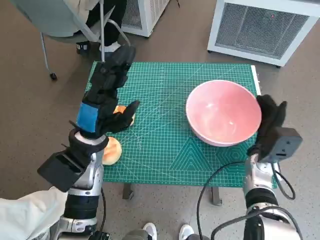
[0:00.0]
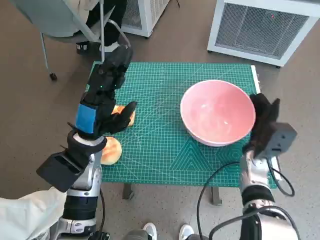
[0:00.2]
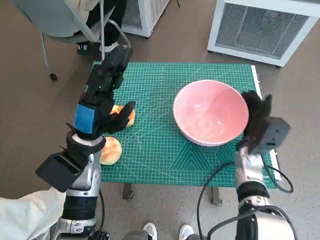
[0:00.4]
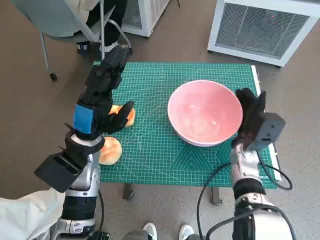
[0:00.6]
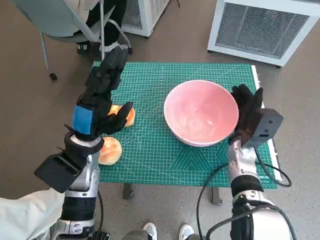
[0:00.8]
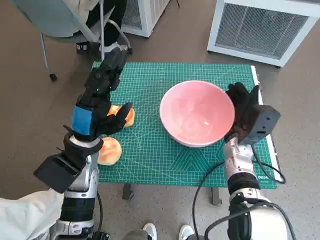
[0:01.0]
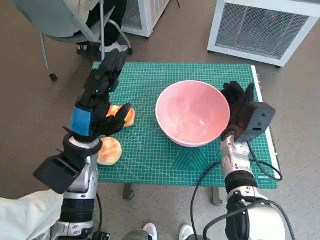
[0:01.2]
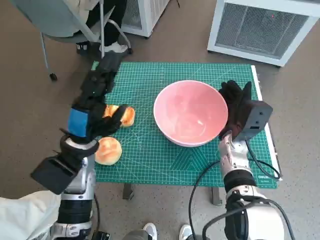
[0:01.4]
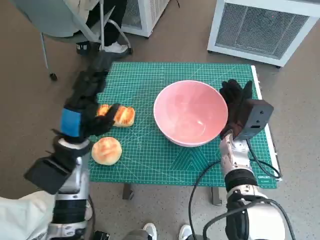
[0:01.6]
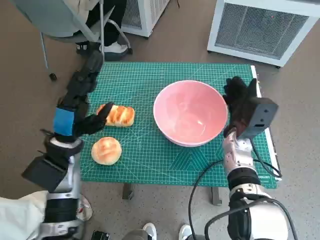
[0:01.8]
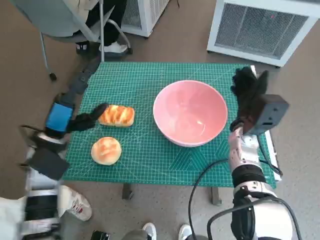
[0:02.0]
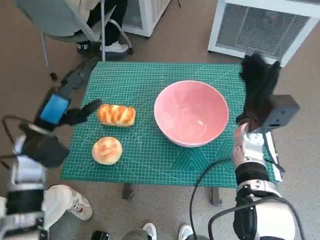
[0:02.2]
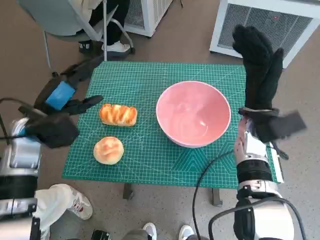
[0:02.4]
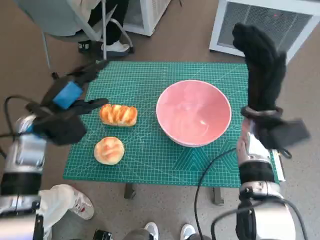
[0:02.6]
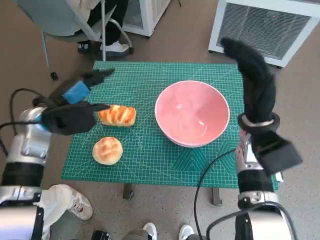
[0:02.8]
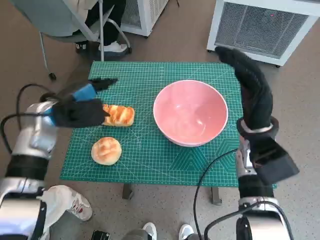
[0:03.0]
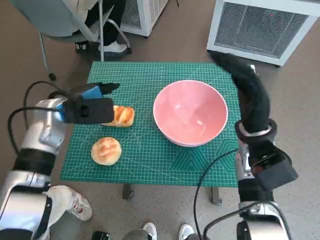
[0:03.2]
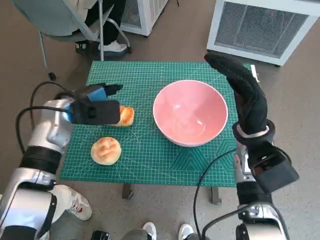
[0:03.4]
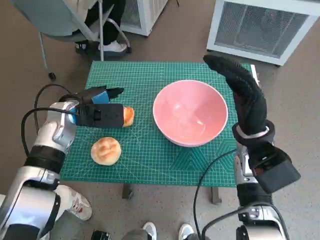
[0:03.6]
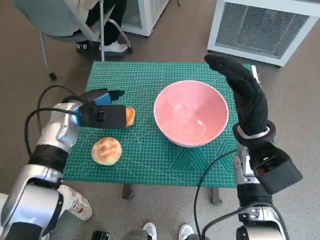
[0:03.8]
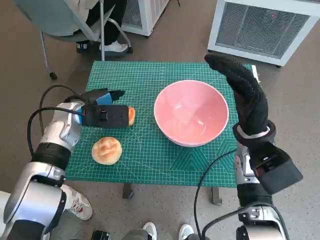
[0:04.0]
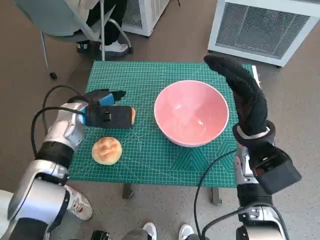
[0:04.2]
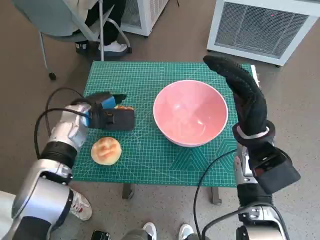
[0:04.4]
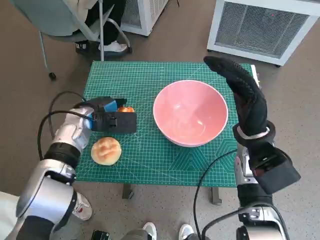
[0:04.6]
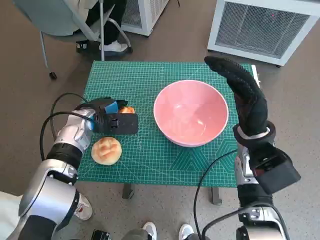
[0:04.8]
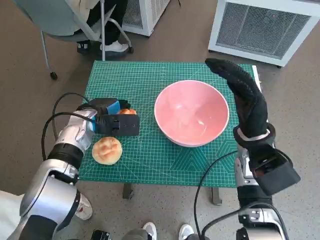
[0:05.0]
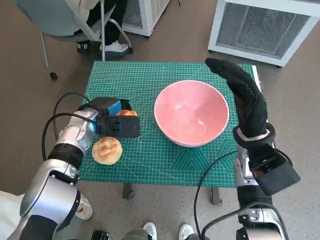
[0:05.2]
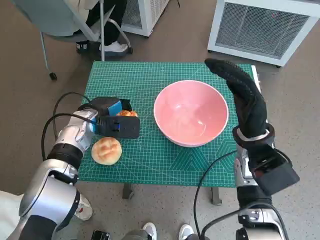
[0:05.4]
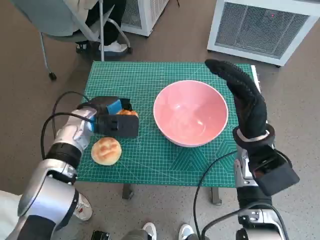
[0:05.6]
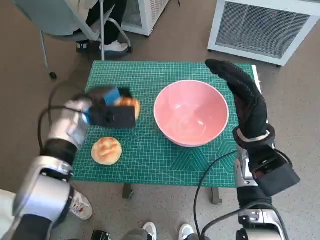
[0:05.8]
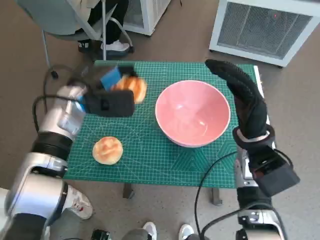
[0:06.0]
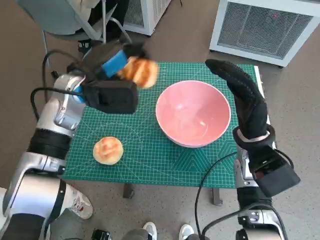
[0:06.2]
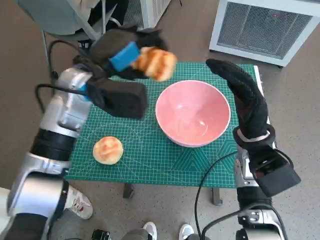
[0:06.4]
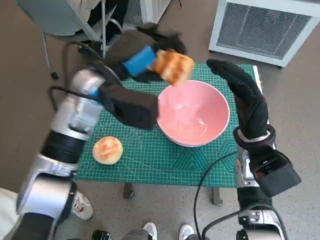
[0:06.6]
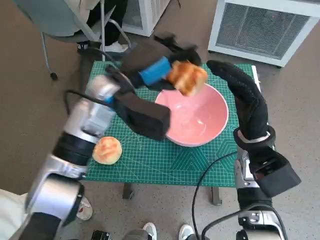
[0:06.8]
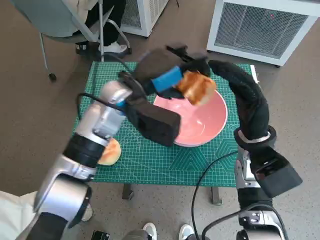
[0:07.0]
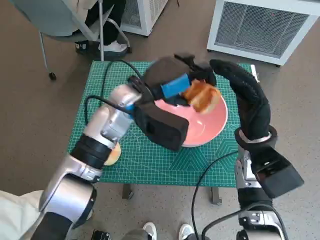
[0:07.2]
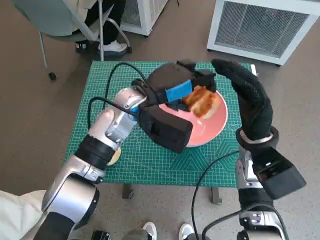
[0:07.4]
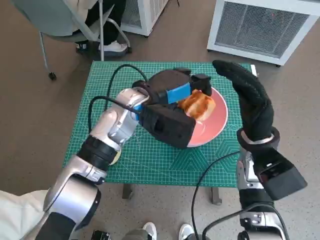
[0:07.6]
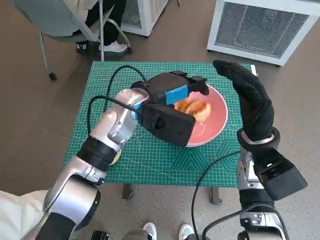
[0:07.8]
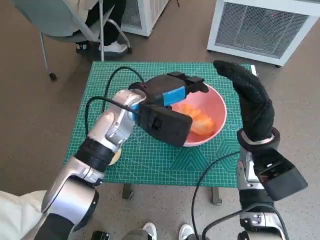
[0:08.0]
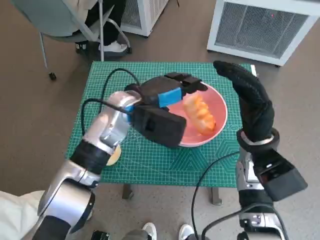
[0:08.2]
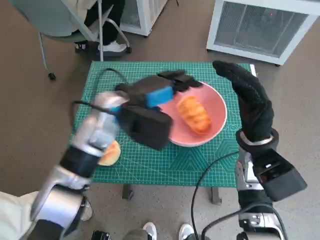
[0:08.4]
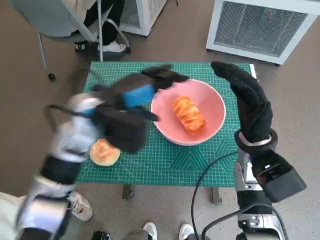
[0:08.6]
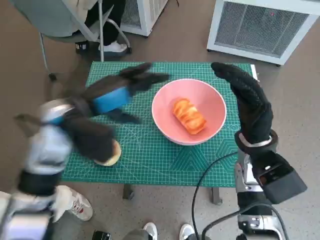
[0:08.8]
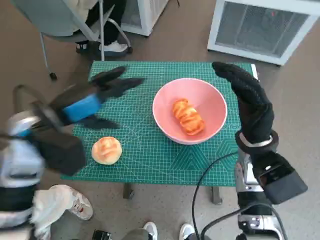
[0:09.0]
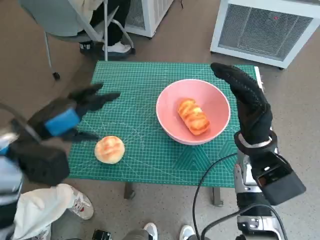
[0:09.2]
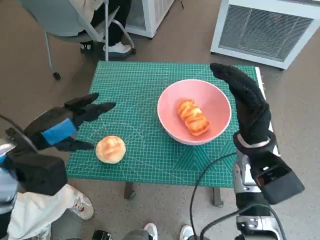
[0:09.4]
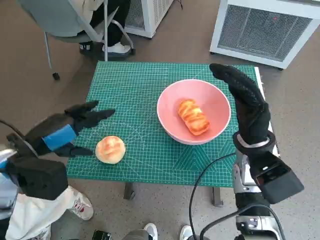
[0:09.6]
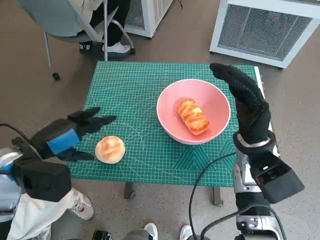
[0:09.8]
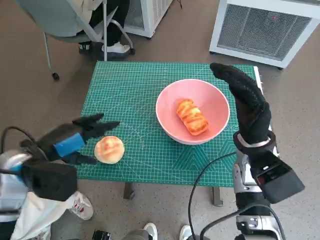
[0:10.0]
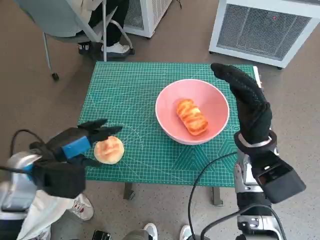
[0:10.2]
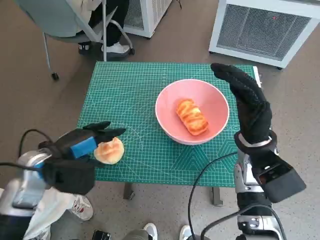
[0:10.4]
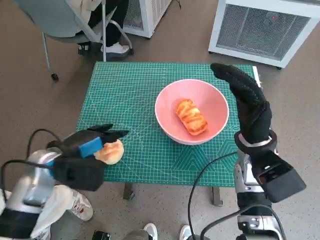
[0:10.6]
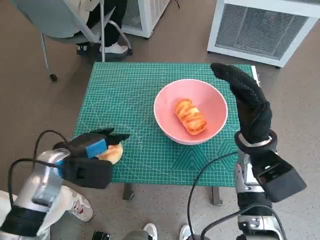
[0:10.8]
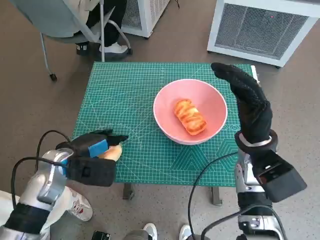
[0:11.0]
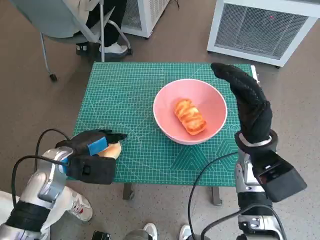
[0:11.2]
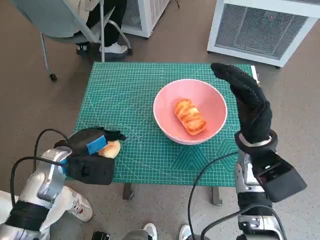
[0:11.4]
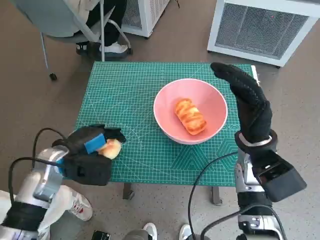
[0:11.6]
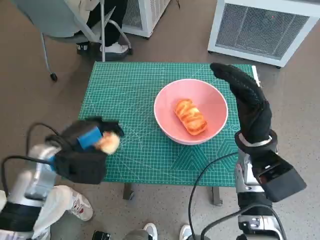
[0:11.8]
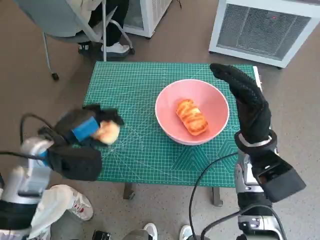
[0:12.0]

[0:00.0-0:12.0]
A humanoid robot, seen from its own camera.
Task of the whole recording: Push the bowl to the center of the table and put the bread into the bowl.
Step, 0.0 to 2.0 s: Move the pink bowl to the center of table with right hand.
Step, 2.2 to 5.0 s: Grasp the long bread with left hand.
Step, 5.2 to 8.4 s: Place the long bread in pink bowl with left hand.
Step, 8.6 to 11.4 s: Grasp the round bread with left hand.
0.0 to 1.6 s: The right hand travels to the left by some 5 cm.
1.6 to 3.0 s: The left hand travels forward and to the left by some 10 cm; the right hand heads upward, covering roughly 10 cm.
3.0 to 4.4 s: The left hand moves some 5 cm.
6.0 to 7.6 s: The left hand goes approximately 10 cm to the right.
7.6 to 9.0 s: The left hand heads to the left and backward, covering about 15 cm.
9.0 to 10.4 s: The left hand shifts roughly 10 cm downward.
10.4 to 12.0 s: The hands make only small movements.

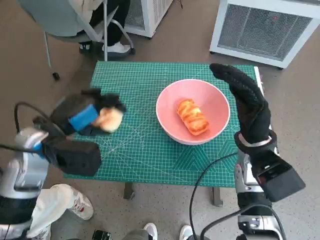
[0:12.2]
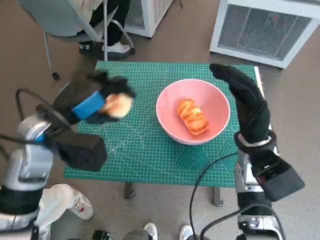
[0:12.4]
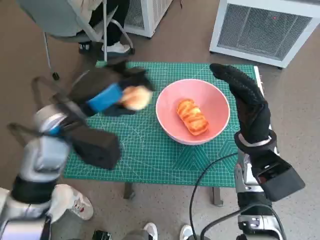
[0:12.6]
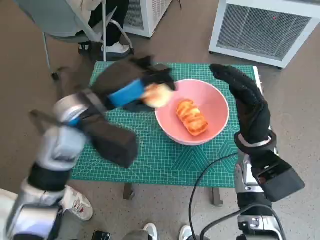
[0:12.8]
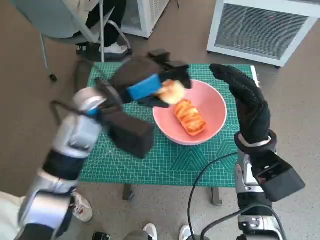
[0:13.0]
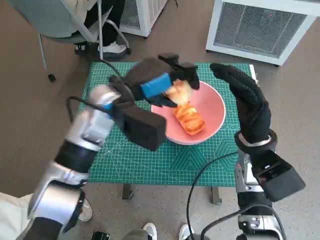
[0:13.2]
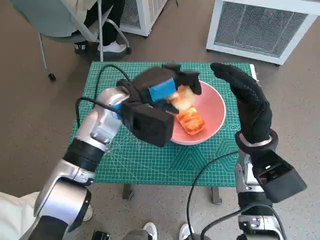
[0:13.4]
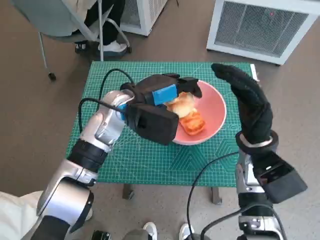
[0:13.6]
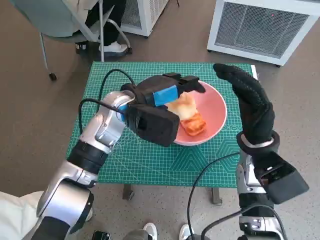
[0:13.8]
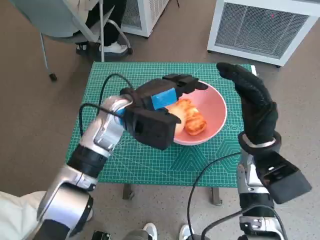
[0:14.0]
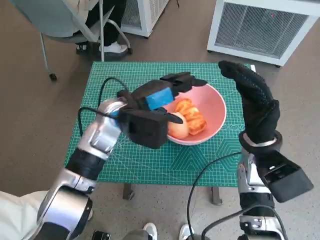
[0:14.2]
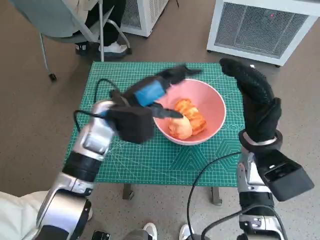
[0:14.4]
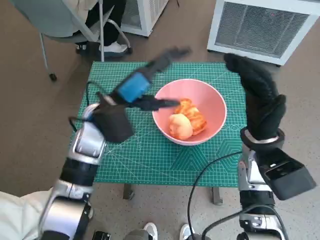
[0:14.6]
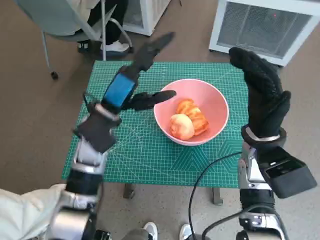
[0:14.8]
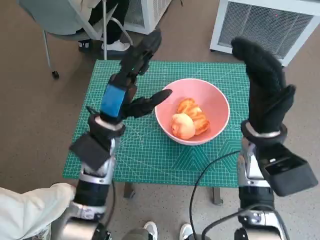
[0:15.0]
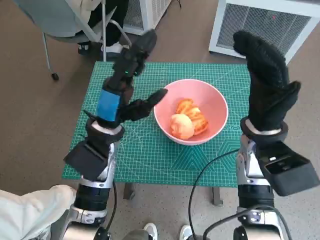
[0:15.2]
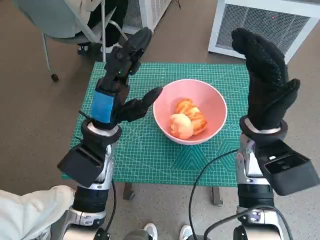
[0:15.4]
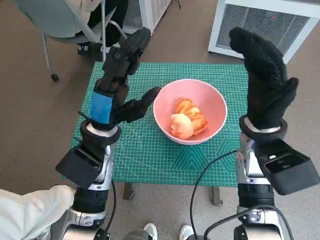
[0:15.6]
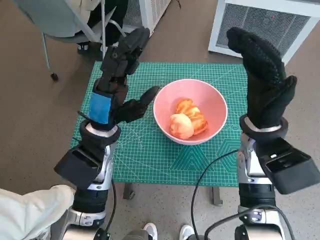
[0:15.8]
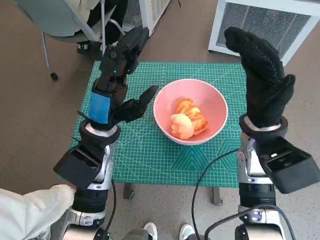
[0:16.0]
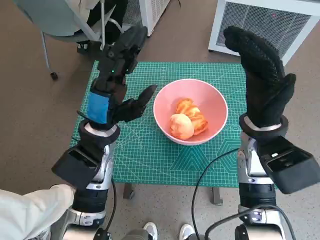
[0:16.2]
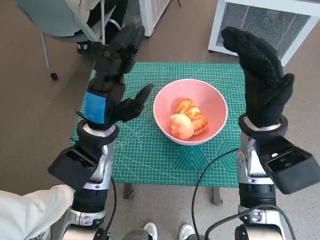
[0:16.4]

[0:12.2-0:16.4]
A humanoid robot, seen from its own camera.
Task of the whole recording: Push the bowl to the center of the table and put the bread into the bowl.
Step, 12.2 to 14.2 s: Place the round bread in pink bowl with left hand.
12.2 to 13.6 s: The left hand moves to the right and forward, some 15 cm.
13.6 to 15.0 s: The left hand changes place by about 5 cm.

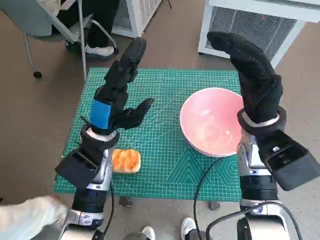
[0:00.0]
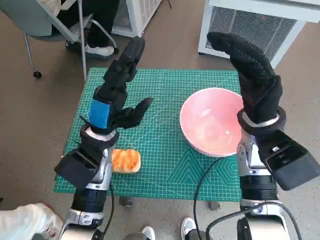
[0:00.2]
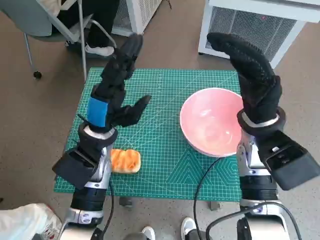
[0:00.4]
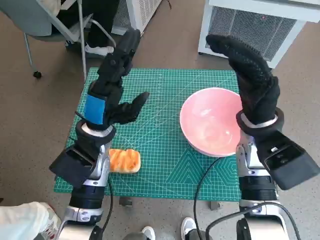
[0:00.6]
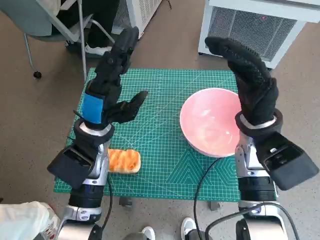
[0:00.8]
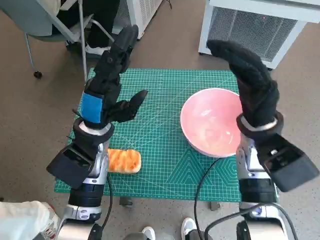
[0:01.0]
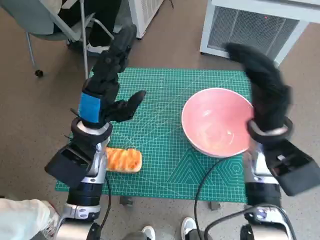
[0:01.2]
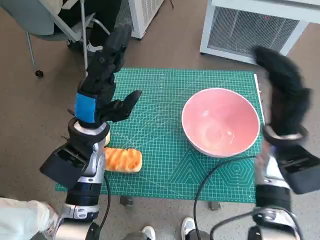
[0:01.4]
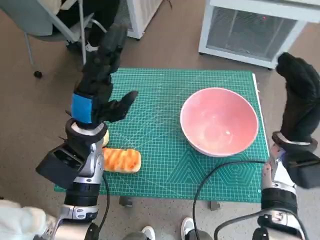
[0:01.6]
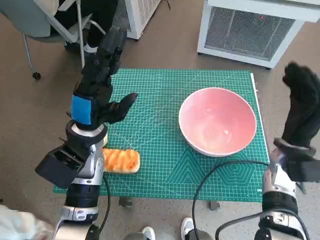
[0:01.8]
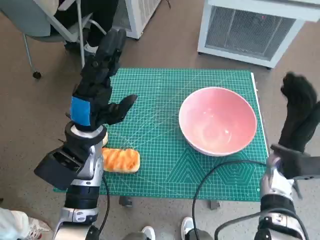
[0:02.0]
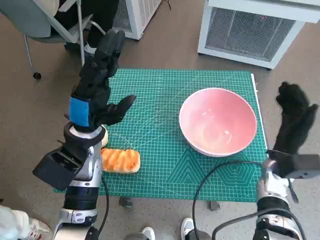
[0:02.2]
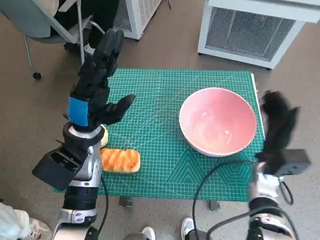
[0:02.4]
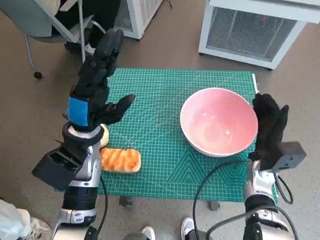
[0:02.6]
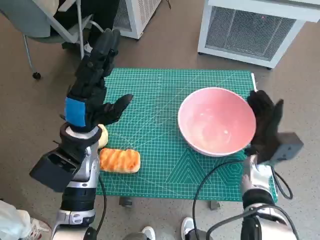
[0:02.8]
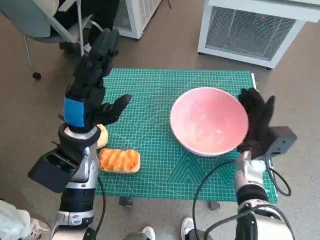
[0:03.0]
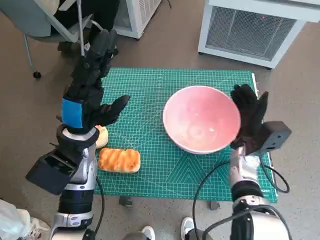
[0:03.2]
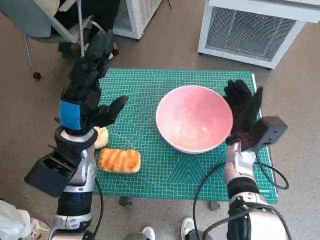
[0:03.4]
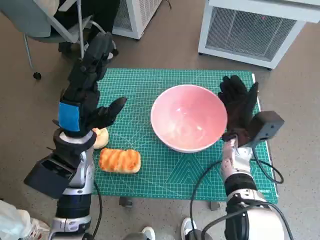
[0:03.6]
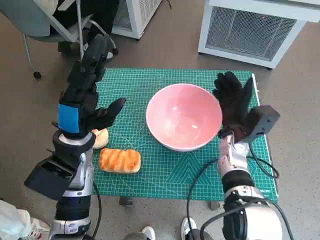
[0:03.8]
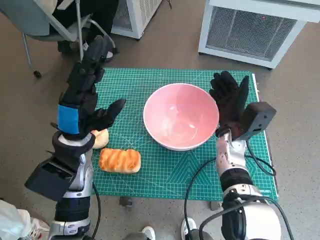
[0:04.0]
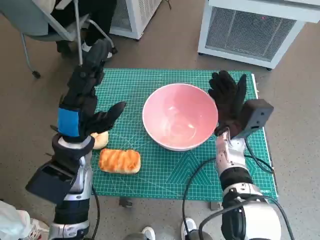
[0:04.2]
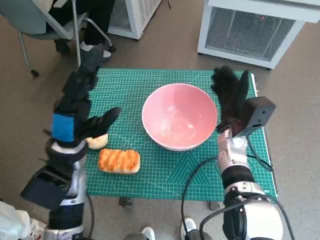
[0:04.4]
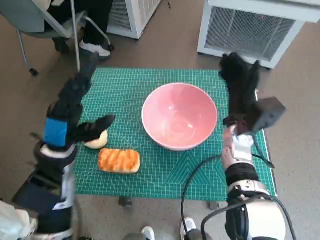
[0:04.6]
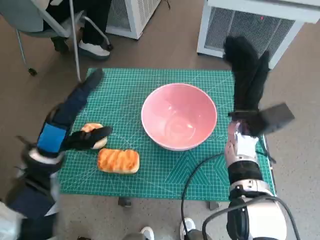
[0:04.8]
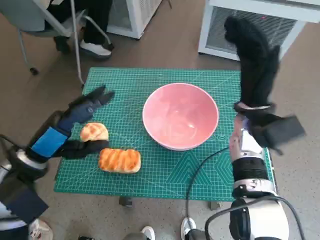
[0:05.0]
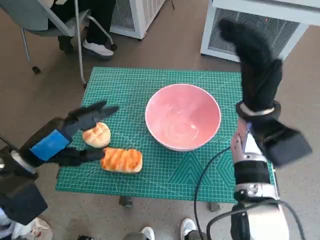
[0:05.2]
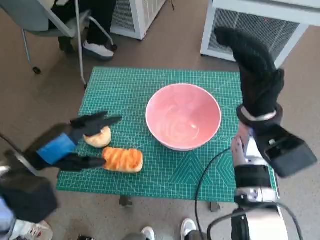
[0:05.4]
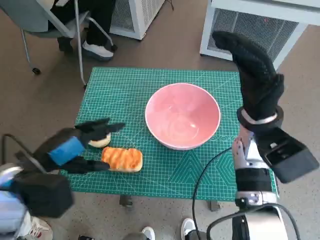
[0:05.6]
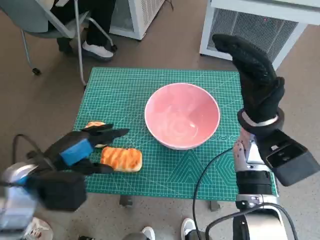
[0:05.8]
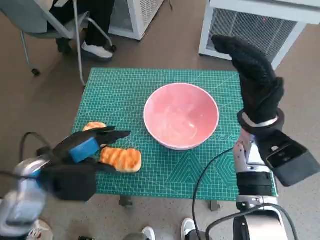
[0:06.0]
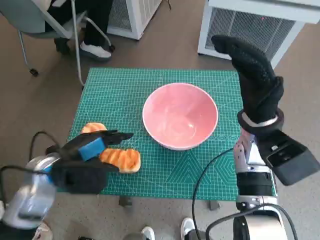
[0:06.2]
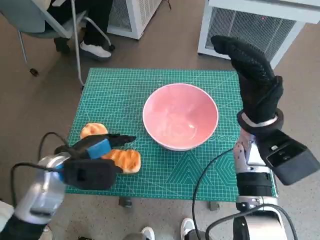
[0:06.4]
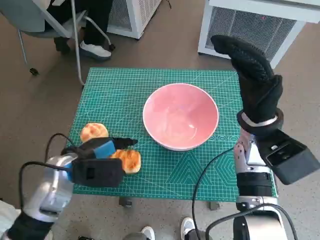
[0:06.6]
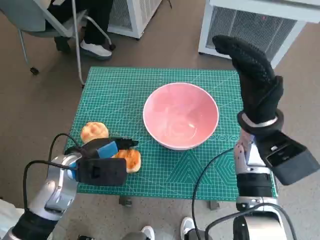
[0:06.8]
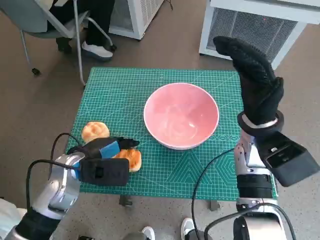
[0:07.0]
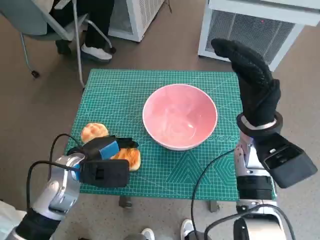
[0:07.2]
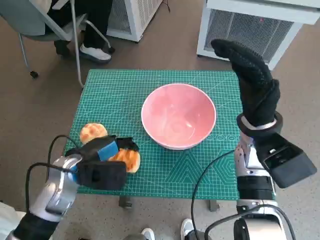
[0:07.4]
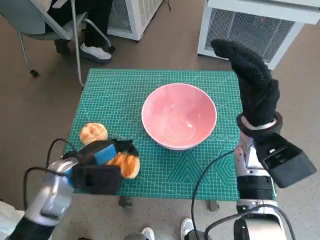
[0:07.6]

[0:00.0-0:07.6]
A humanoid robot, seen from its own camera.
Task of the whole recording: Push the bowl to the center of the table and put the bread into the bowl.
Step, 0.0 to 4.4 s: Move the pink bowl to the center of table with right hand.
Step, 4.6 to 7.2 s: Grasp the long bread with left hand.
1.6 to 3.0 s: The right hand is displaced downward by about 10 cm.
3.0 to 4.6 s: The right hand shifts about 5 cm upward.
4.6 to 6.0 s: The right hand travels upward by some 10 cm.
6.0 to 7.6 s: The left hand is displaced downward by approximately 5 cm.
